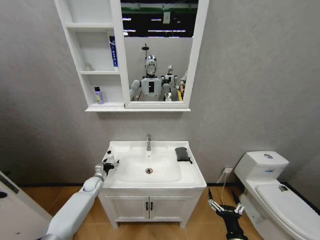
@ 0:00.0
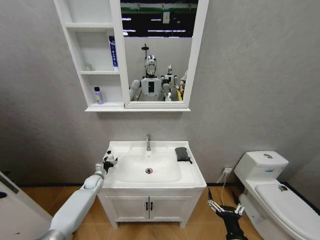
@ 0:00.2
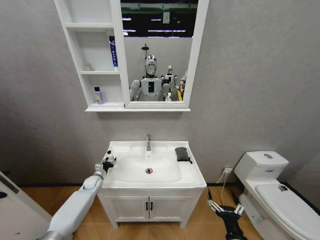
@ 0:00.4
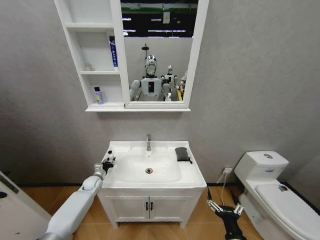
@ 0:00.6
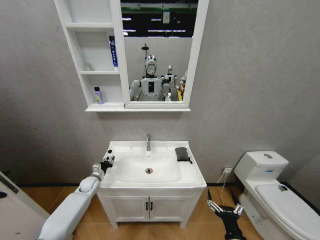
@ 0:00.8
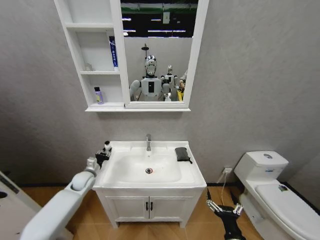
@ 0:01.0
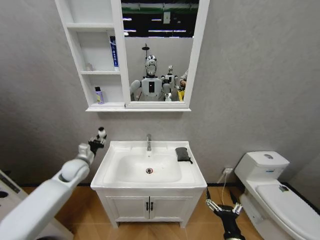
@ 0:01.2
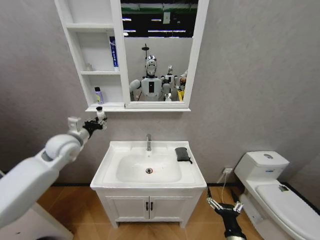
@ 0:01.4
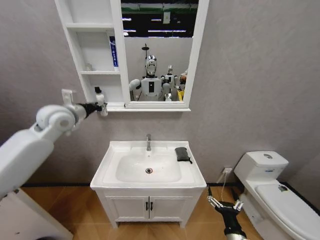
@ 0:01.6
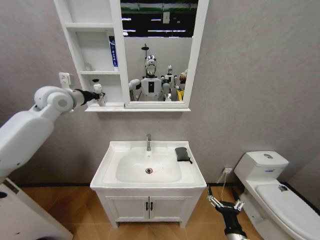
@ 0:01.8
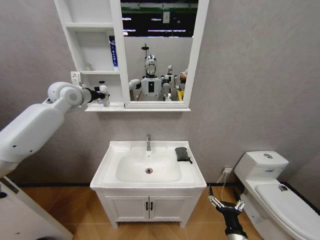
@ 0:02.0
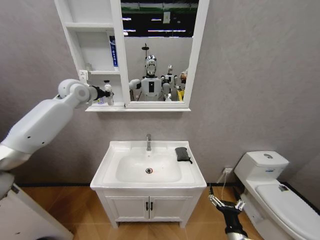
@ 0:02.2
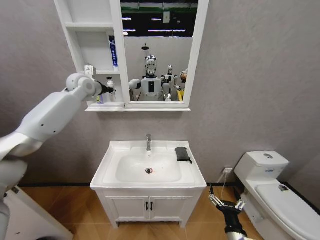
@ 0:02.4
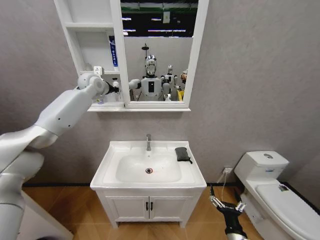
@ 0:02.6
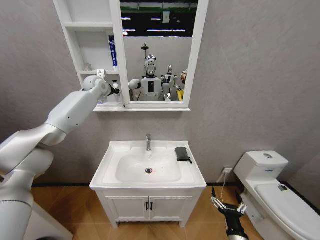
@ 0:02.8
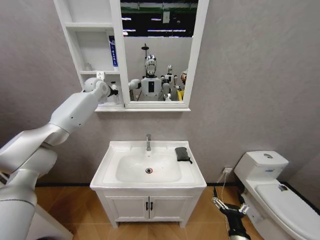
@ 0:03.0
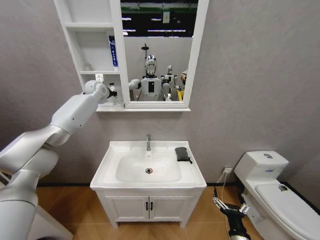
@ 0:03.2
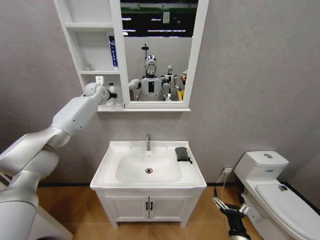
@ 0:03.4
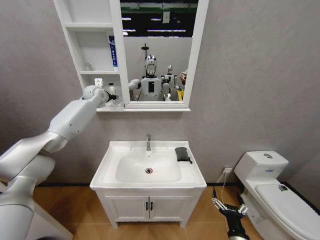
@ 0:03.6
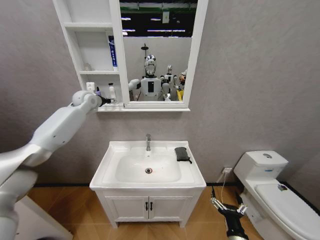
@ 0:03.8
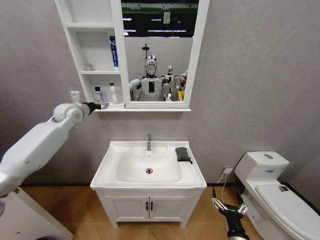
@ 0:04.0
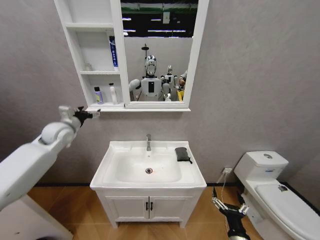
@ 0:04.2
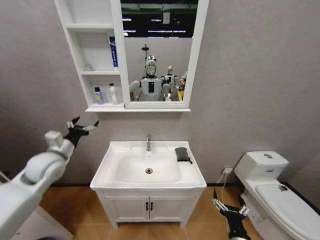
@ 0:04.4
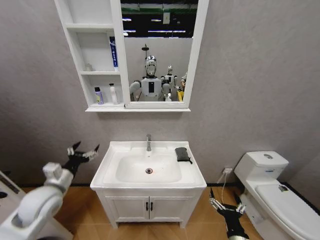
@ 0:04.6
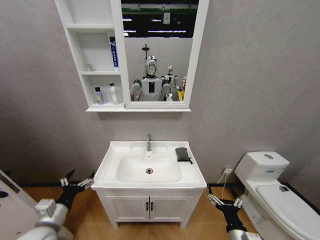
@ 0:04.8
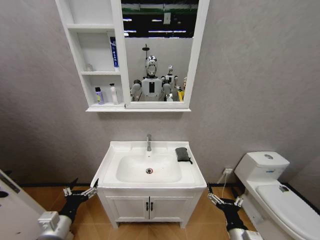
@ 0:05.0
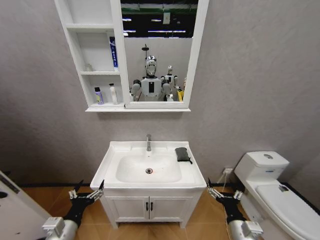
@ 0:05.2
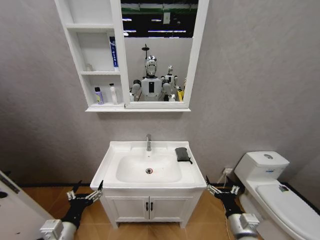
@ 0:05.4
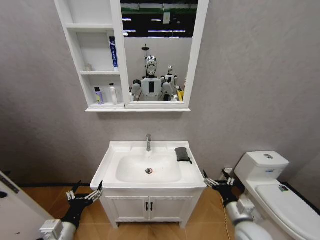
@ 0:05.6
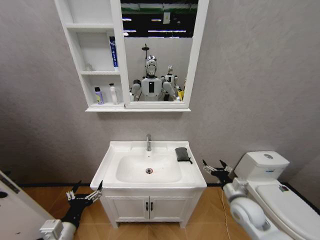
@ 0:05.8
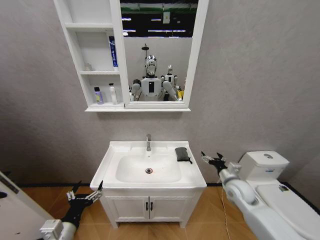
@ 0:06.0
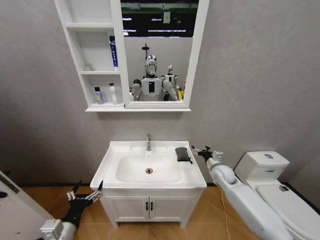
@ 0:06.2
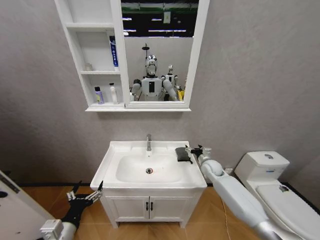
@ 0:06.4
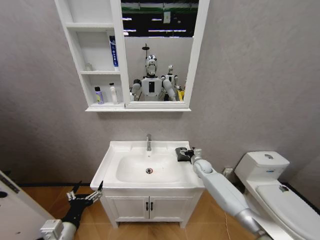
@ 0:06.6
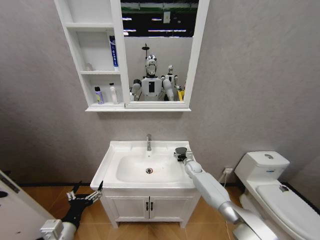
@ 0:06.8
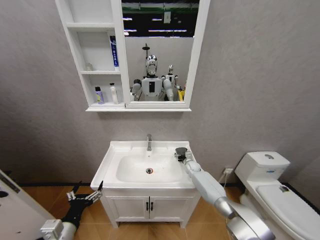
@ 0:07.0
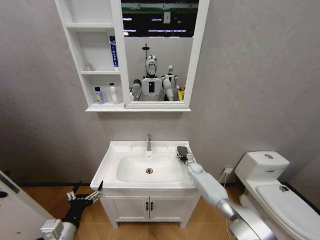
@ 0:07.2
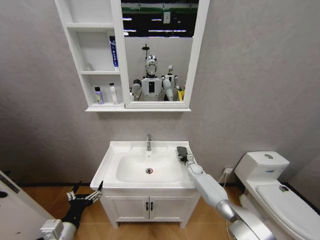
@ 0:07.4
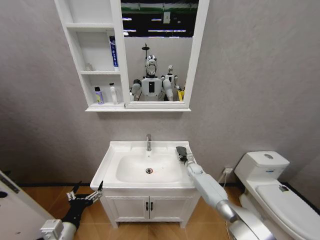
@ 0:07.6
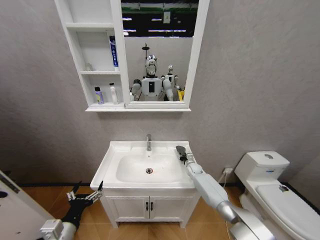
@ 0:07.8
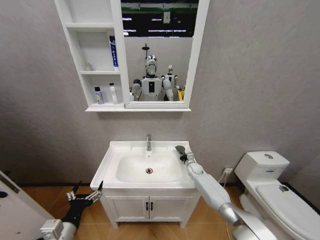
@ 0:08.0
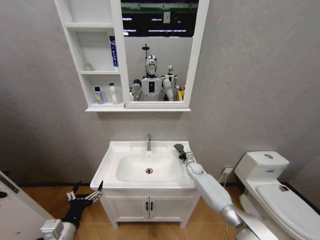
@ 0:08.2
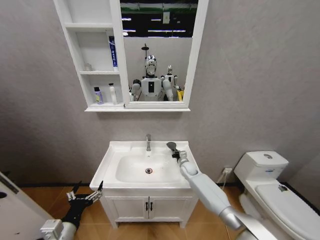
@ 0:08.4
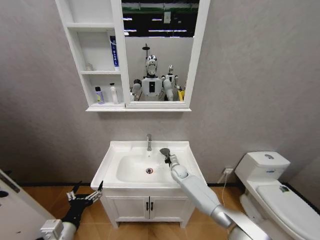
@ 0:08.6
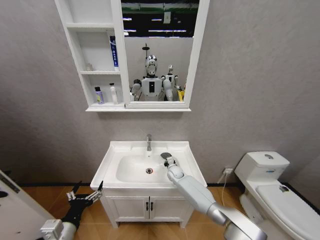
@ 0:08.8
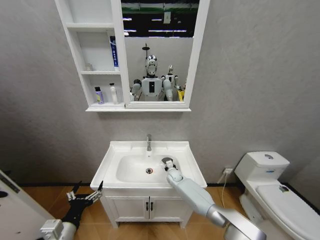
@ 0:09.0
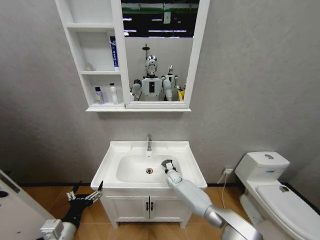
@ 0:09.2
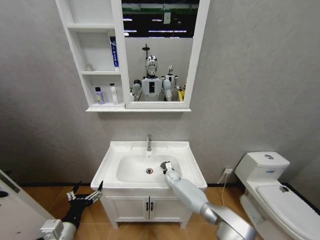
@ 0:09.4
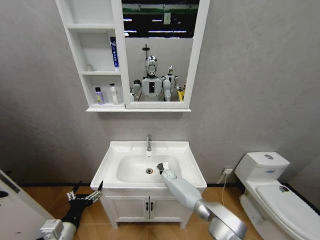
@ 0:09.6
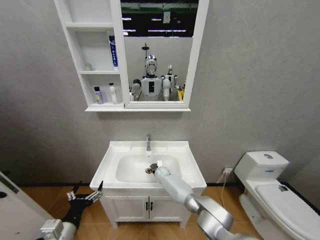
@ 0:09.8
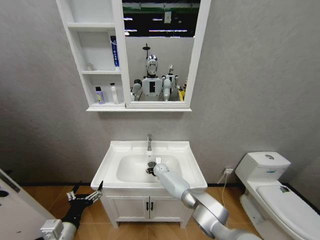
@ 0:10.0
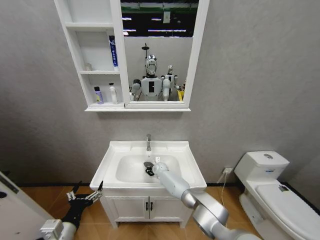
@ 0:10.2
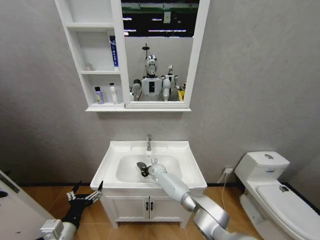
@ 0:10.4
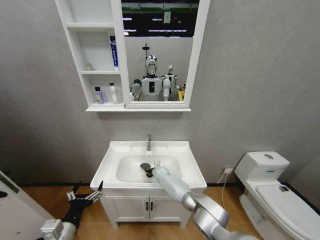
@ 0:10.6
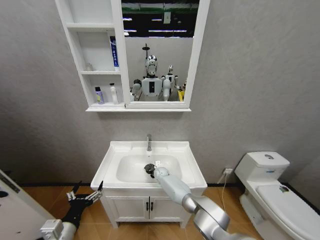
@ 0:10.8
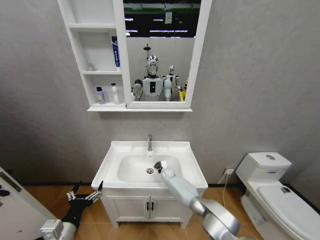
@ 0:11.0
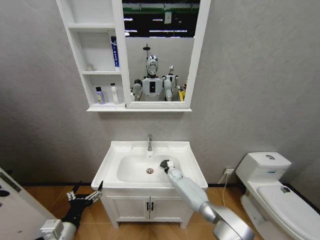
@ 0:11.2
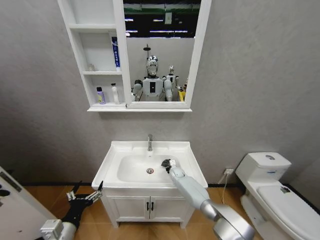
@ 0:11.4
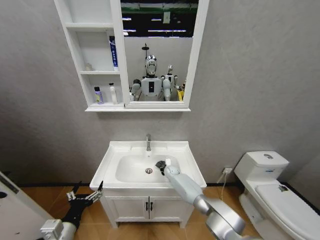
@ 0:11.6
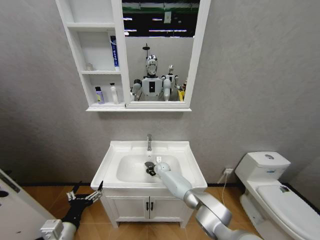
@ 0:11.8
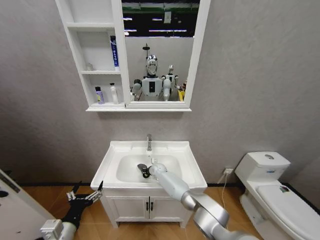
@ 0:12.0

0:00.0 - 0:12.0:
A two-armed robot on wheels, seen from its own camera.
Task of the whole recording: Move facial cleanser and shampoo from washbasin to cabinet, then wipe washbasin with towel.
0:00.0 - 0:01.6: The left gripper goes some 40 cm upward, and closes up.
0:01.6 - 0:03.0: The left gripper moves forward, roughly 20 cm.
0:03.0 - 0:04.4: The left gripper moves backward and downward, about 35 cm, and opens its fingers.
0:04.4 - 0:06.0: The right gripper moves forward, roughly 25 cm, while the left gripper travels backward and downward by some 25 cm.
0:06.0 - 0:07.6: The right gripper moves forward and downward, roughly 25 cm, and closes up.
0:07.6 - 0:09.0: The right gripper goes some 15 cm to the left, and closes.
0:09.0 - 0:10.4: The right gripper heads to the left, covering roughly 10 cm.
0:10.4 - 0:12.0: The right gripper travels to the right and back again, approximately 15 cm each way.

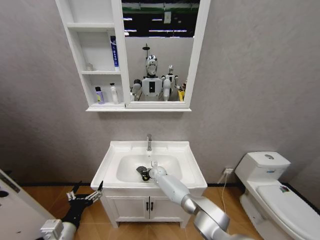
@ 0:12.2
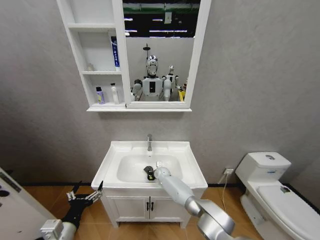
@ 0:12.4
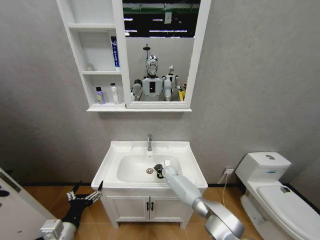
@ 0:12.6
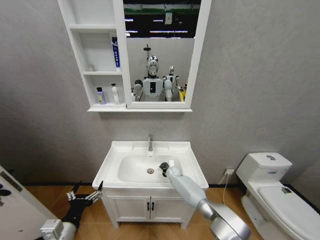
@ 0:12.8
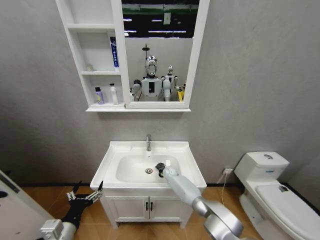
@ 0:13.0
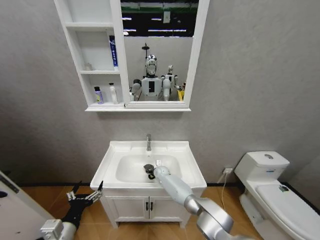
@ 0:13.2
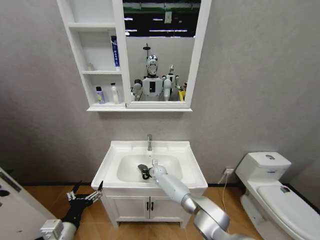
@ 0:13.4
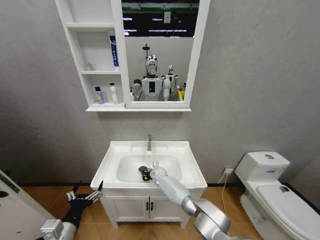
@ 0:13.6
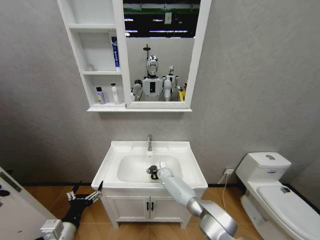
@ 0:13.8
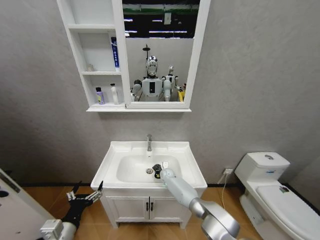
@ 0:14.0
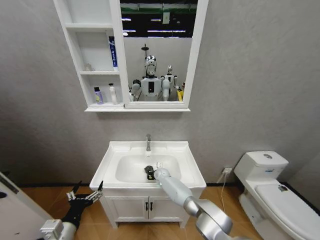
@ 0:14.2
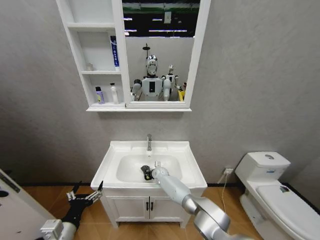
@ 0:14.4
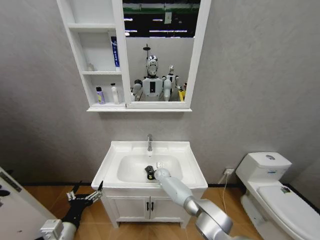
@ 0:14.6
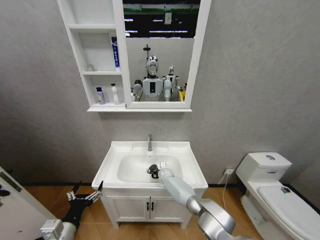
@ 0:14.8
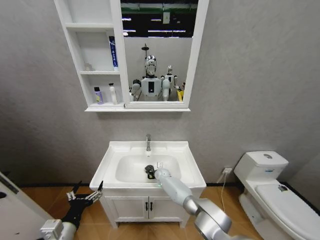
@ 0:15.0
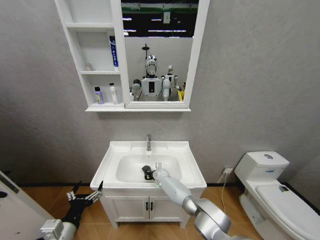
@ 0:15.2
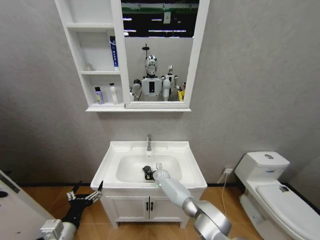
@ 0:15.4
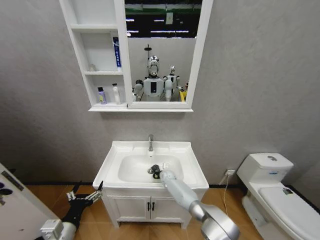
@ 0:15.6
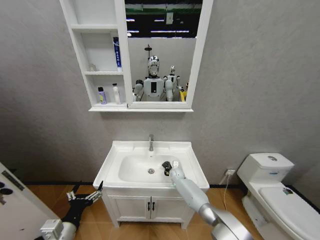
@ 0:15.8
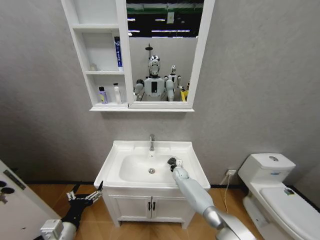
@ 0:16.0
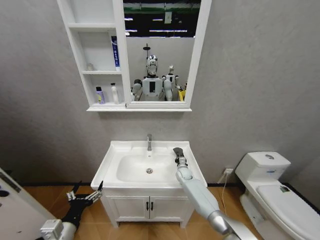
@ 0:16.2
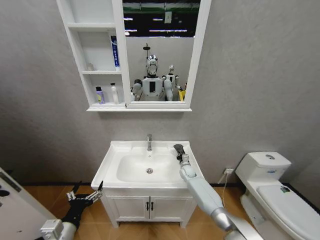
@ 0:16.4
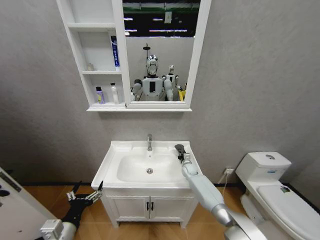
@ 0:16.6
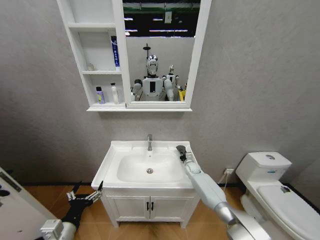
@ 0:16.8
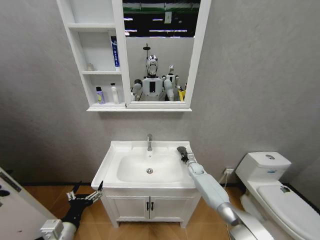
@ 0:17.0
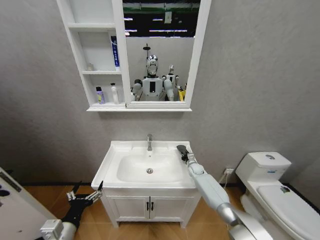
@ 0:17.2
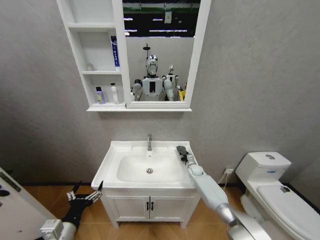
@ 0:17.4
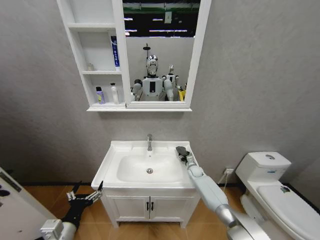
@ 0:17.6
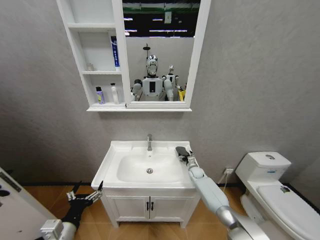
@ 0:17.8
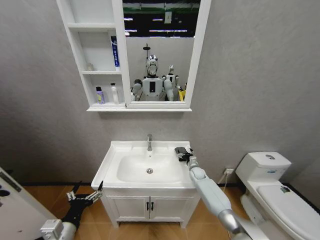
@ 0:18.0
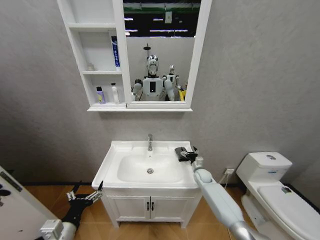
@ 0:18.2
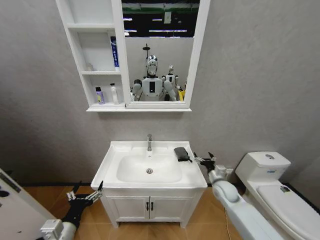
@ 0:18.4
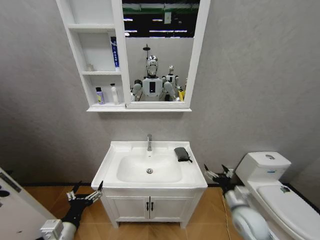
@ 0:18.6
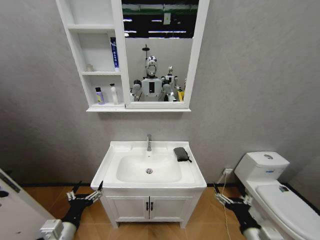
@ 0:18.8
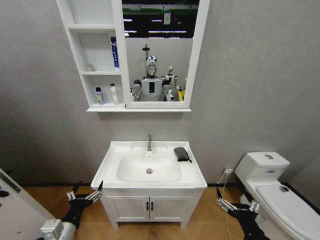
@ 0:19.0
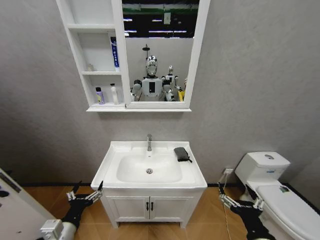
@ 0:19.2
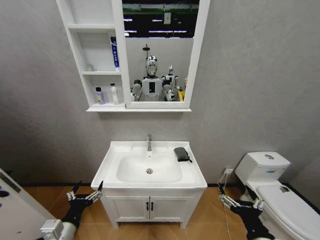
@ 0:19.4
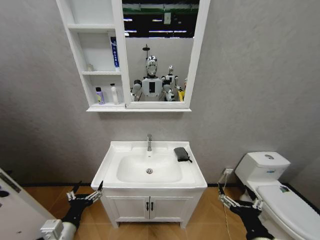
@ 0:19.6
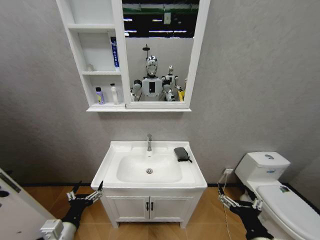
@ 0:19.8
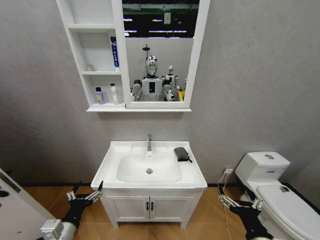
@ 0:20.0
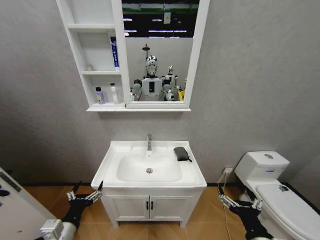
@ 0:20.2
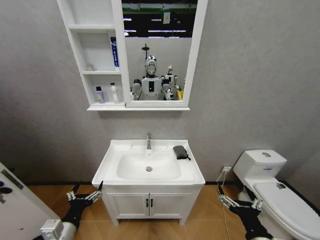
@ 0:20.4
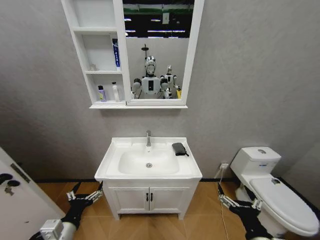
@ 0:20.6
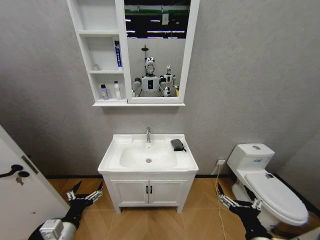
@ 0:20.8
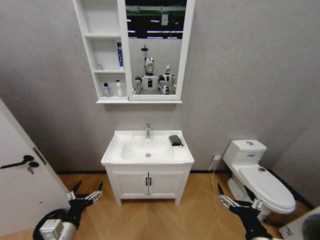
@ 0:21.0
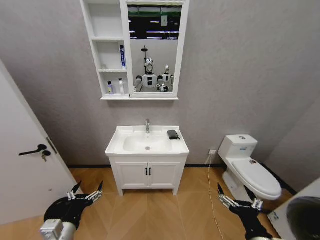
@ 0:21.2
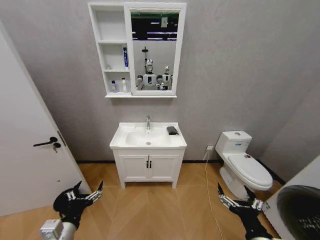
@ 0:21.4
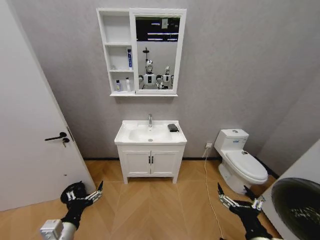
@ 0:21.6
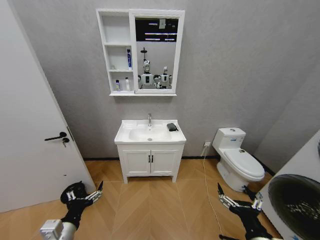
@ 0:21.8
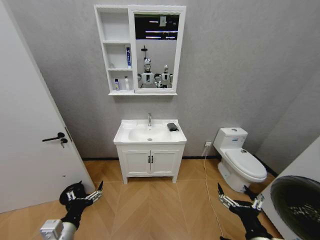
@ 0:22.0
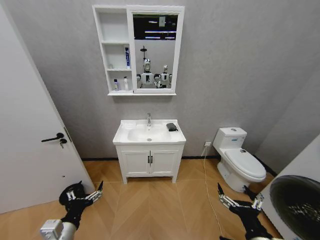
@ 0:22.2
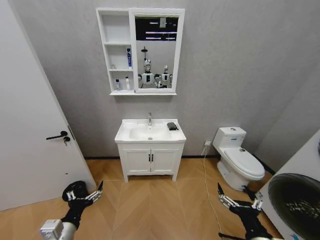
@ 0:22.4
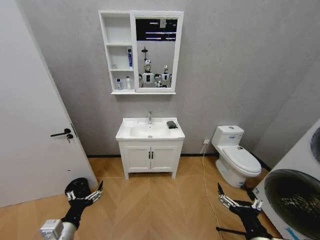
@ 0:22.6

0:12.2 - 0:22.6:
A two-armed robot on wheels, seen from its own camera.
Task of the whole recording: Move facial cleanser and shampoo from washbasin to cabinet, then wipe washbasin with towel.
0:12.2 - 0:13.6: The right gripper travels to the right and back again, about 10 cm each way.
0:13.6 - 0:15.2: The grippers move only a little.
0:15.2 - 0:16.6: The right gripper is displaced to the right by roughly 20 cm.
0:16.6 - 0:18.2: The right gripper shifts about 5 cm to the right, and opens.
0:18.2 - 0:19.6: The right gripper travels backward and upward by roughly 40 cm.
